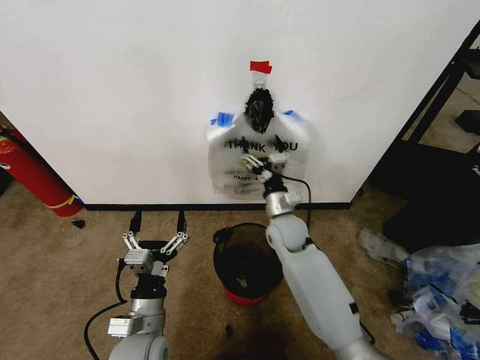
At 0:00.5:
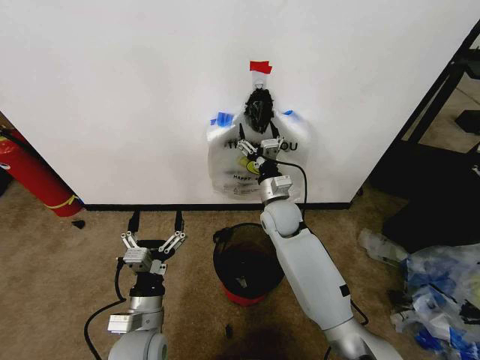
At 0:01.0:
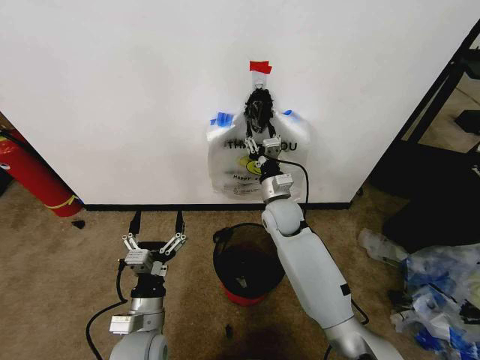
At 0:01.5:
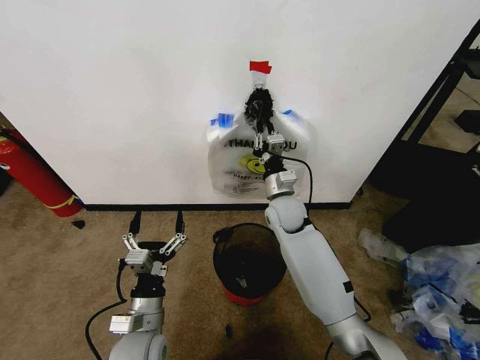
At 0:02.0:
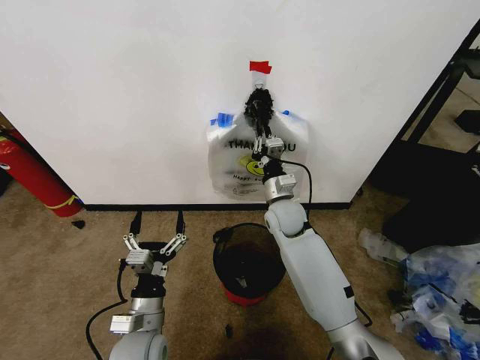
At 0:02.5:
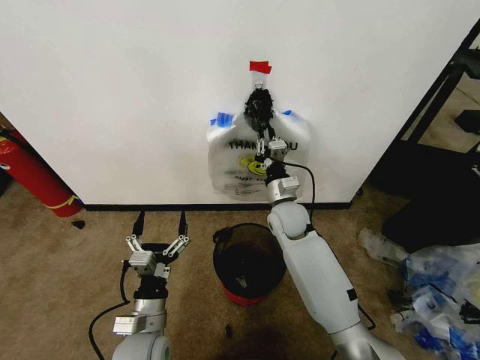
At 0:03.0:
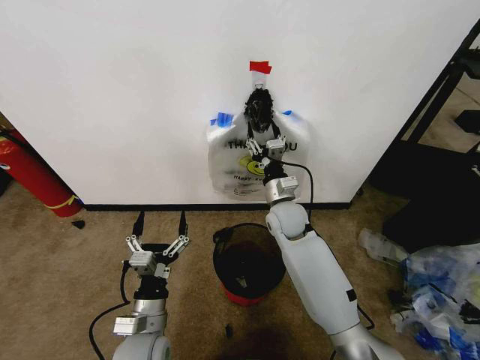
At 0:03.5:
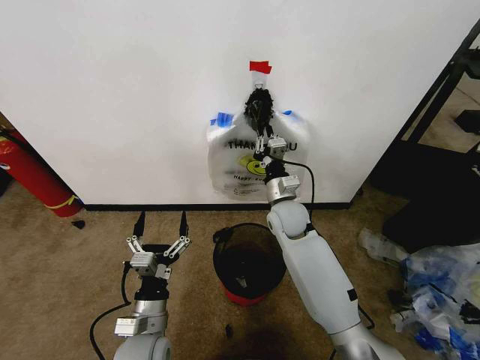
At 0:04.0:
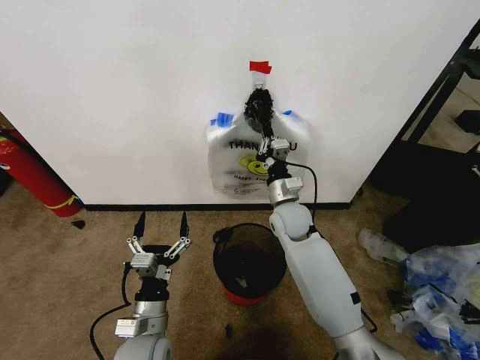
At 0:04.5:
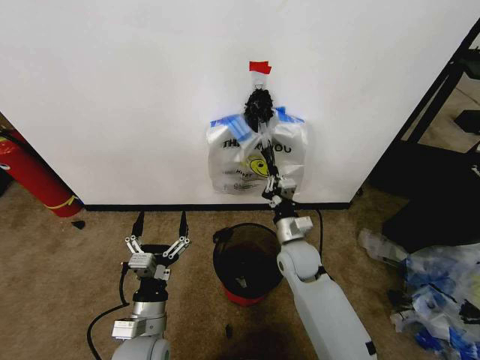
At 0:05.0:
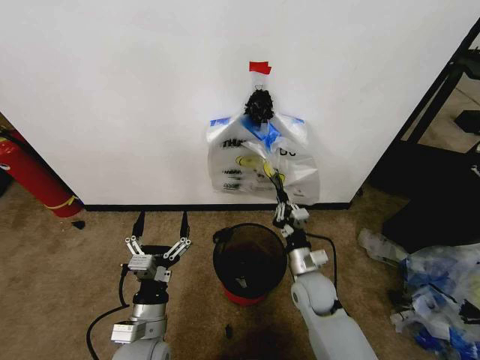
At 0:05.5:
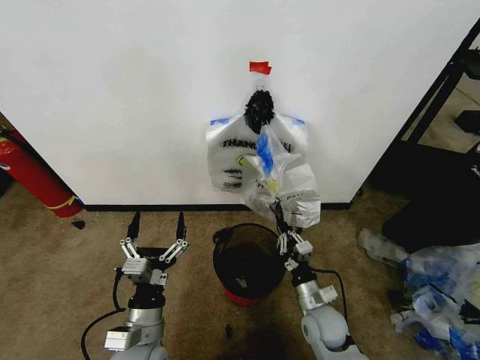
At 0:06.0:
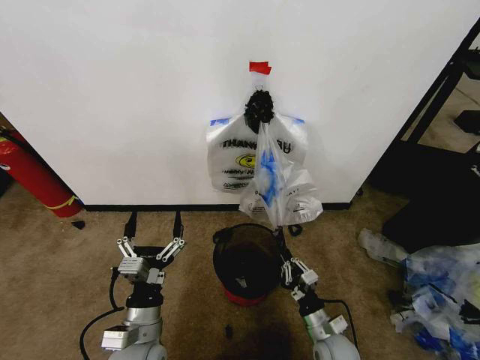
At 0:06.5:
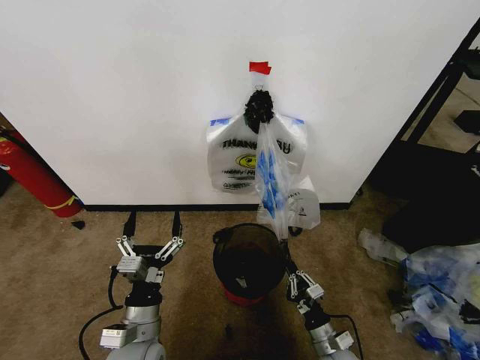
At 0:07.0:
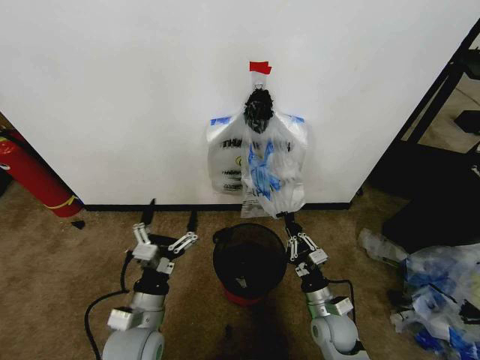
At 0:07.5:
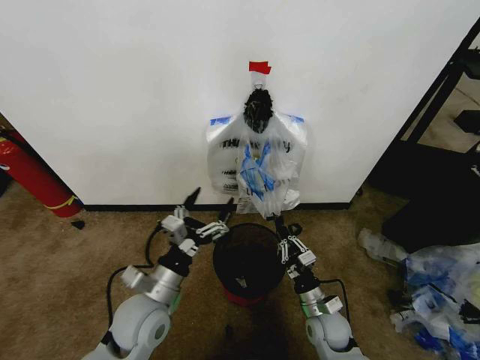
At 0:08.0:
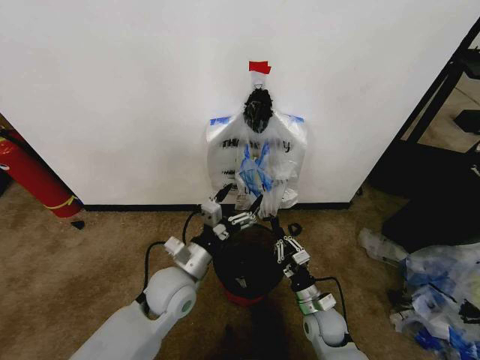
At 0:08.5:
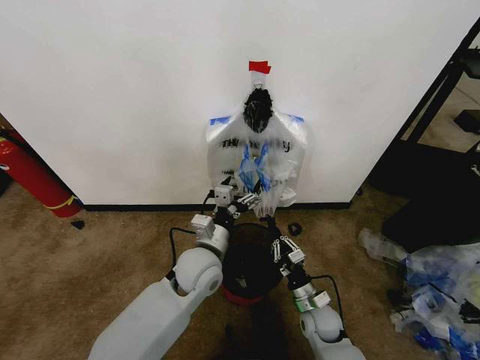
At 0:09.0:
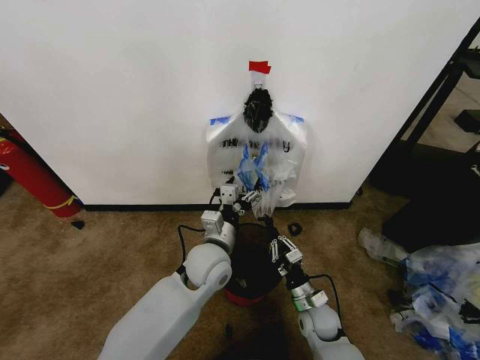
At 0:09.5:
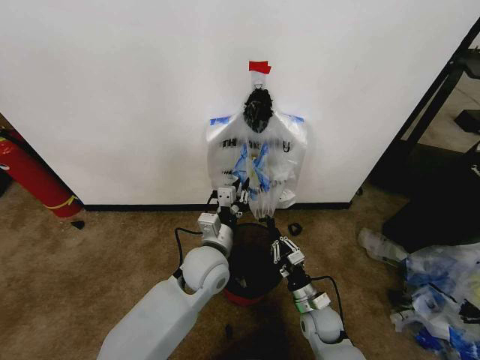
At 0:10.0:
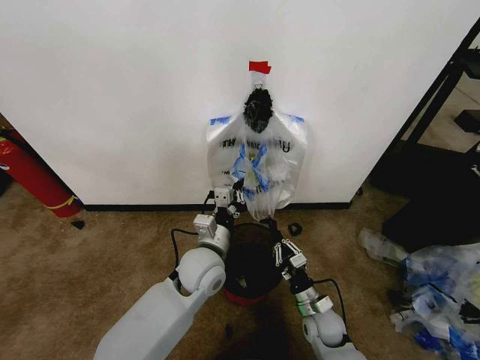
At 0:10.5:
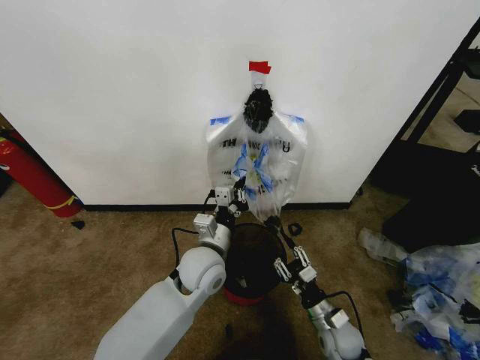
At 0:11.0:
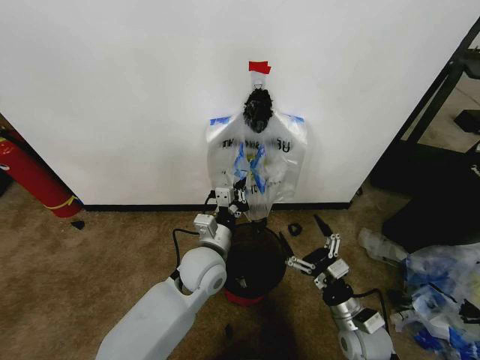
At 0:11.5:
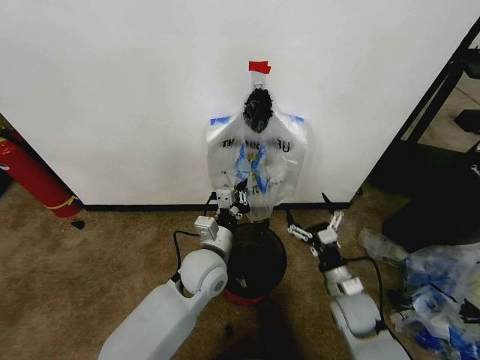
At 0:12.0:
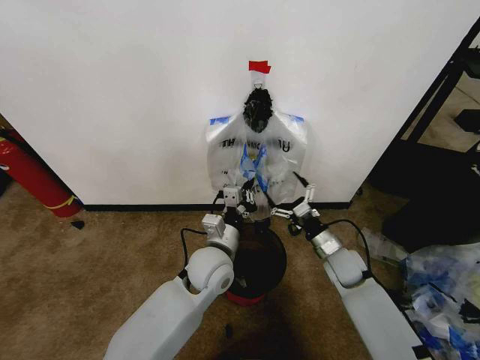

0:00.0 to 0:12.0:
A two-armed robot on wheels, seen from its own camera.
Task of the whole recording: Pick up the garbage bag from the wall and place it over the trash bin.
0:00.0 to 0:02.0: The right gripper closes up.
0:02.0 to 0:04.0: The right gripper opens, then closes once more.
0:04.0 to 0:06.0: The right gripper shifts roughly 35 cm backward, downward and to the right.
0:06.0 to 0:08.0: The left gripper goes some 10 cm forward. The right gripper travels forward by roughly 5 cm.
0:08.0 to 0:10.0: The left gripper heads to the right, covering roughly 5 cm, and closes its fingers.
0:10.0 to 0:12.0: The right gripper goes some 15 cm forward, upward and to the right, and opens.

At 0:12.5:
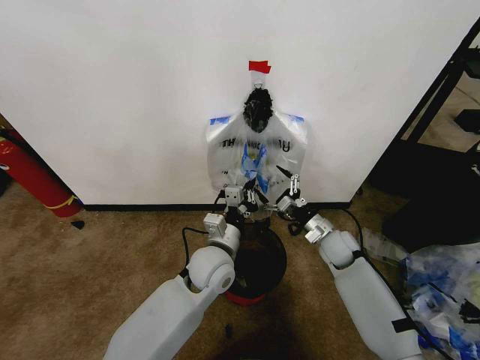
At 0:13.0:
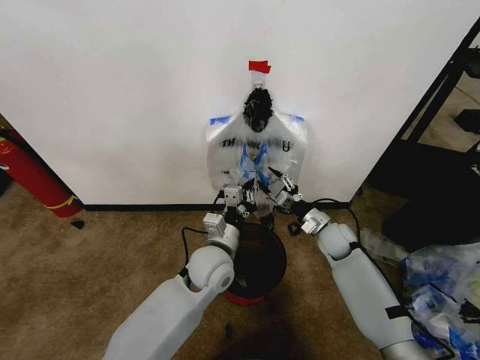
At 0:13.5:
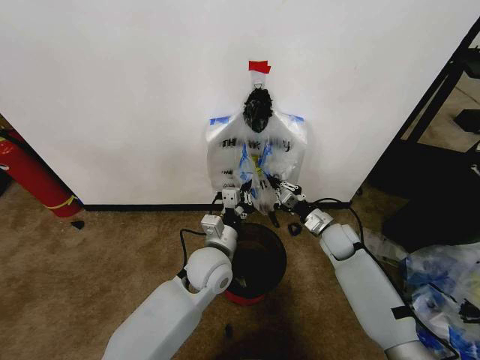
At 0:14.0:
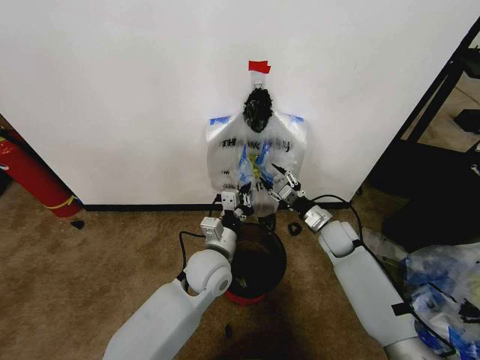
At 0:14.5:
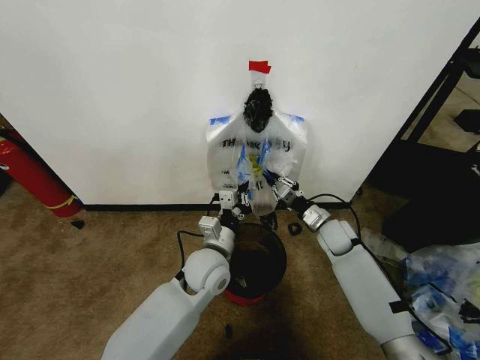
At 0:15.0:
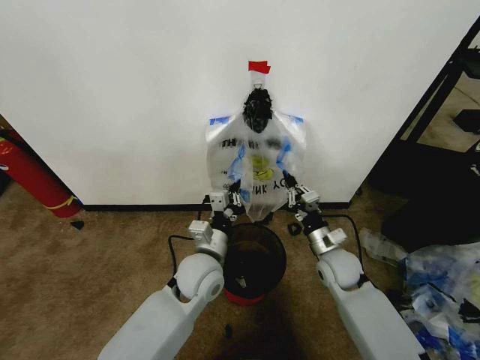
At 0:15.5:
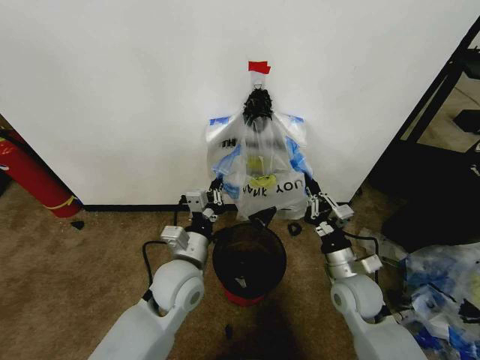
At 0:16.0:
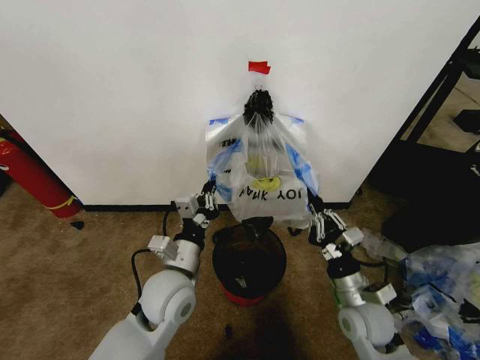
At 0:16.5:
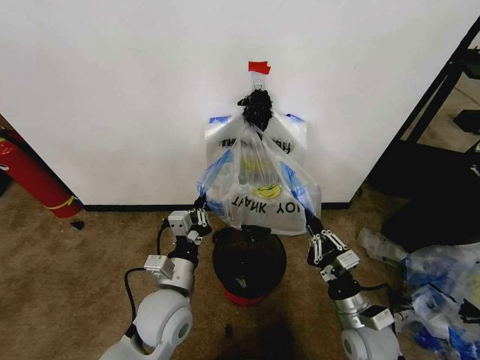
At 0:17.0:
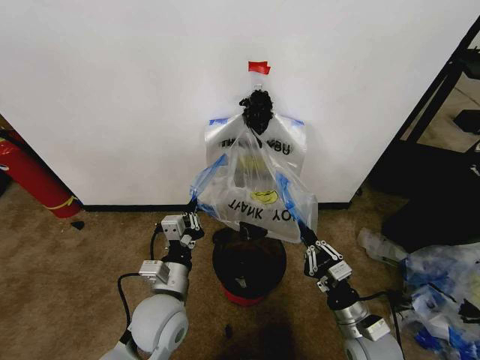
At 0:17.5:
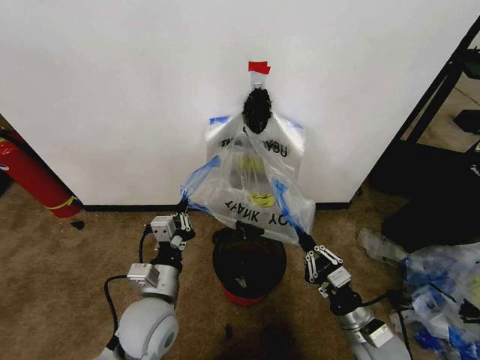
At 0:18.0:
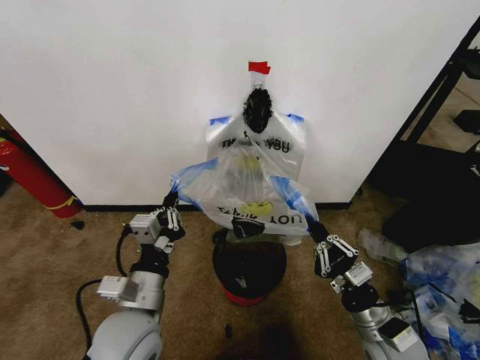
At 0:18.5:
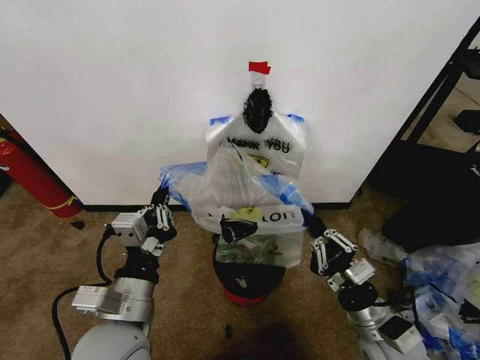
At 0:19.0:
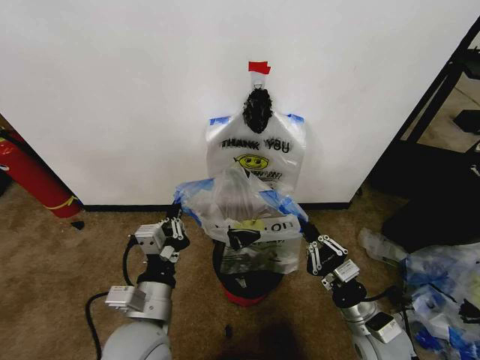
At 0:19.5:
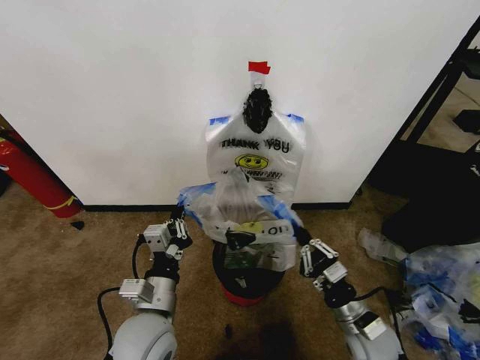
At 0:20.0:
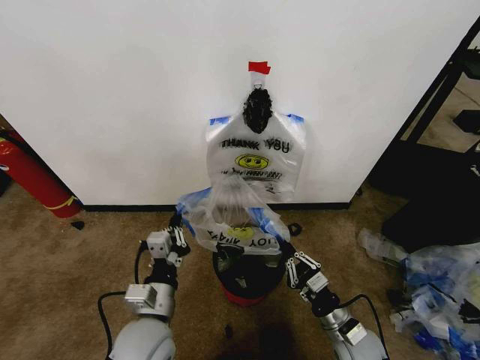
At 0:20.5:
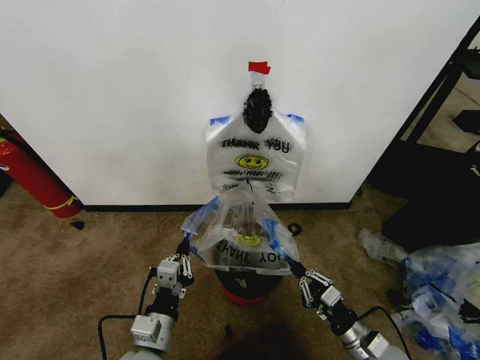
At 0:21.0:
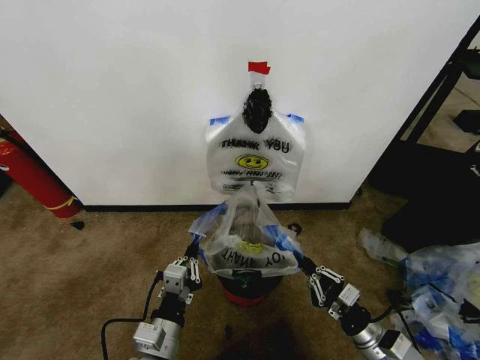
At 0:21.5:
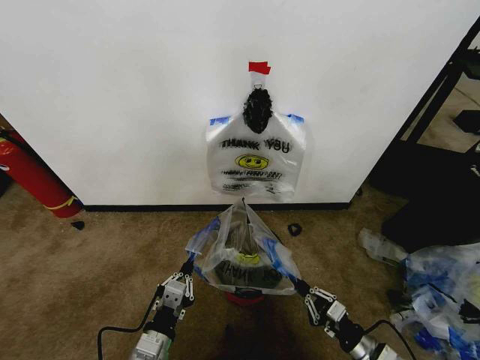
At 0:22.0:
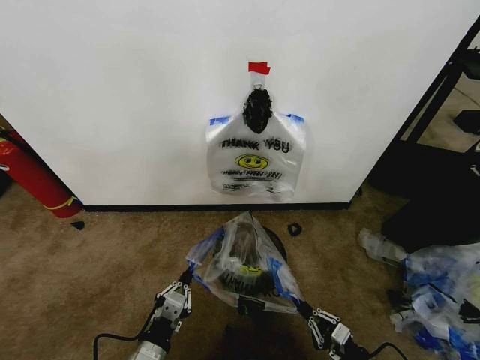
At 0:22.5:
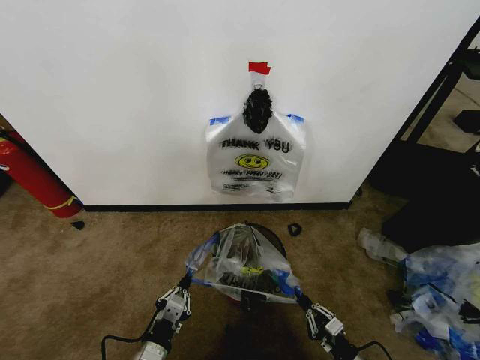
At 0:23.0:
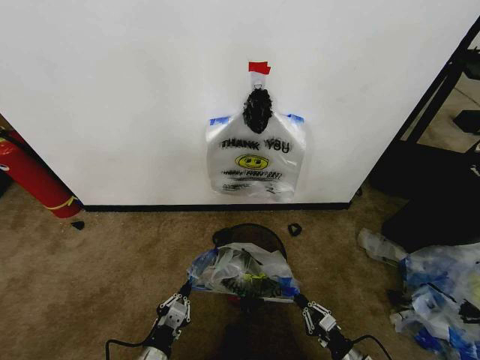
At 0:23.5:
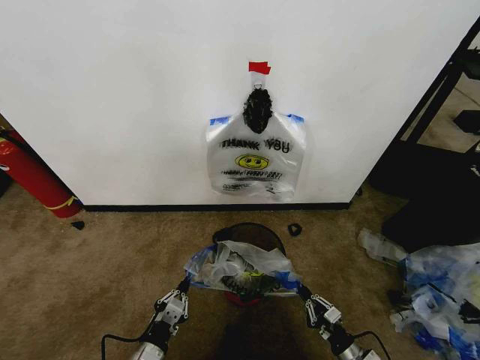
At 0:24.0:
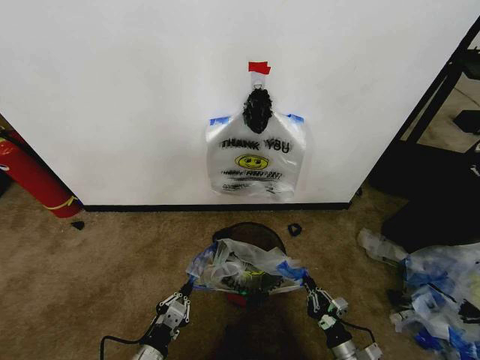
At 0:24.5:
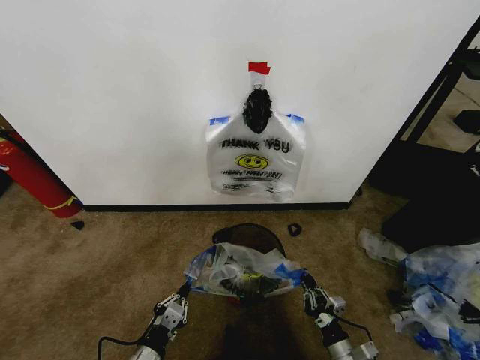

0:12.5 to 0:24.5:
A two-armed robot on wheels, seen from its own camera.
Task of the whole recording: Pick up the garbage bag from the wall and place it over the trash bin.
0:12.5 to 0:14.5: The right gripper closes.
0:14.5 to 0:16.5: The left gripper goes about 10 cm backward and to the left; the right gripper moves backward, approximately 25 cm.
0:16.5 to 0:18.5: The right gripper is displaced upward by about 5 cm. Meanwhile the left gripper is displaced backward and upward by approximately 10 cm.
0:18.5 to 0:20.5: The grippers both shift downward by some 10 cm.
0:20.5 to 0:22.5: The left gripper shifts approximately 5 cm downward, while the right gripper shifts some 10 cm downward and backward.
0:22.5 to 0:24.5: The right gripper shifts about 5 cm to the left.

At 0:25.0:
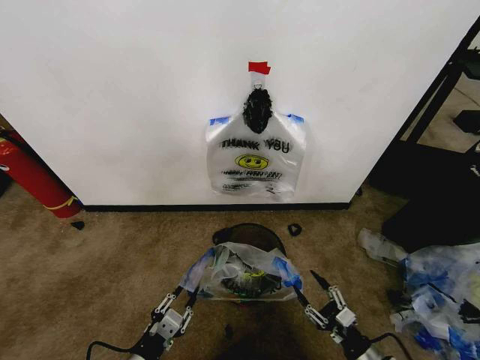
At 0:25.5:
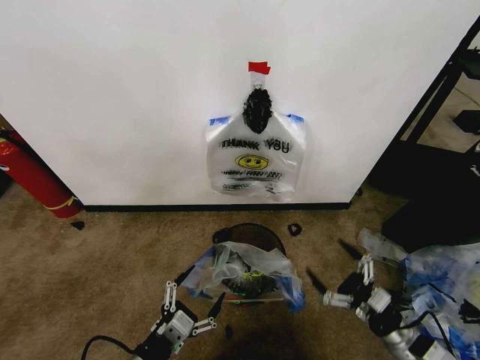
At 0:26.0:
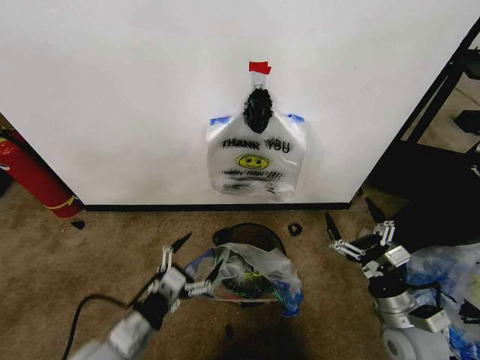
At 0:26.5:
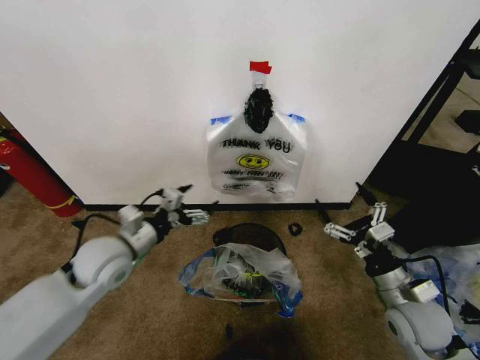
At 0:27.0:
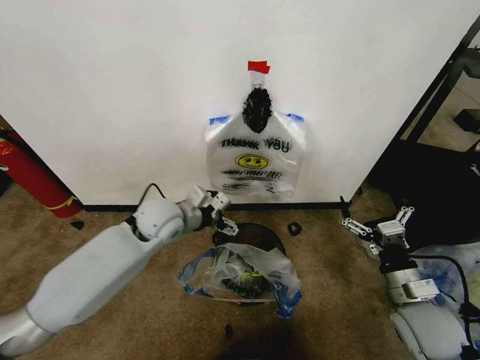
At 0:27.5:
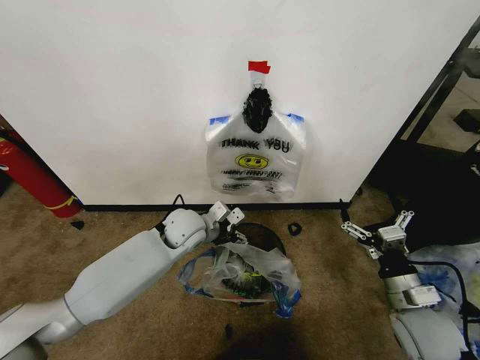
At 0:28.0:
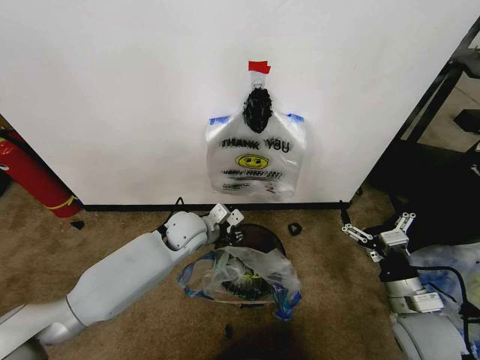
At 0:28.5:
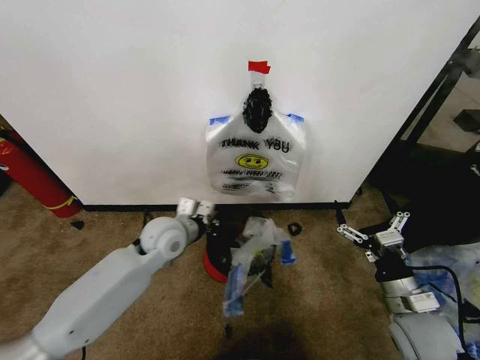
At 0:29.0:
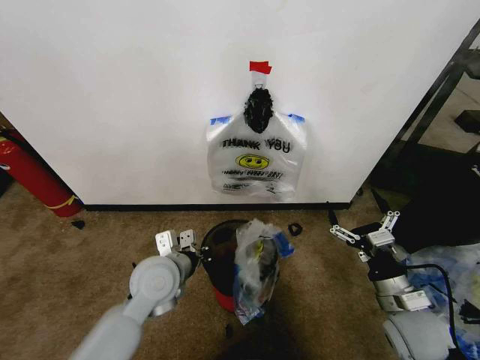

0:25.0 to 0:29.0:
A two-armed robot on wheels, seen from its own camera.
Task of the whole recording: Pick up the garbage bag from the wall and place it over the trash bin.
0:25.0 to 0:27.0: The left gripper heads forward and upward, covering about 35 cm, and opens its fingers; the right gripper is displaced upward and forward by some 20 cm, and opens.
0:27.0 to 0:29.0: The left gripper heads backward, covering approximately 10 cm, and closes.
